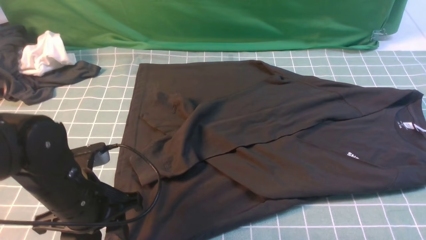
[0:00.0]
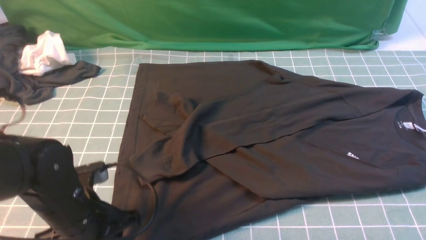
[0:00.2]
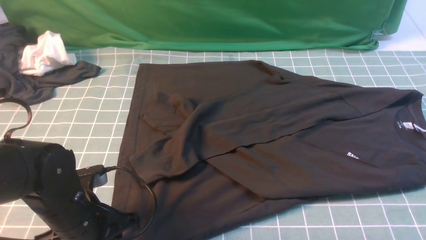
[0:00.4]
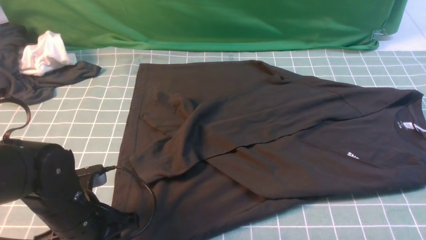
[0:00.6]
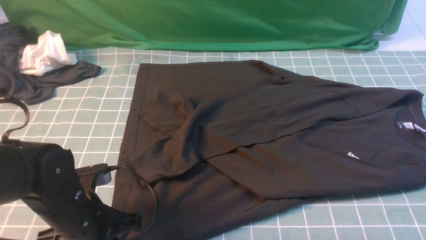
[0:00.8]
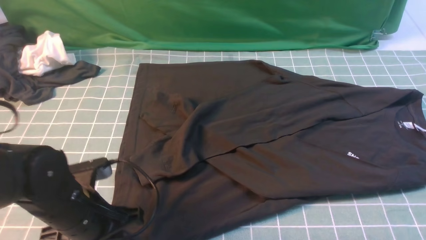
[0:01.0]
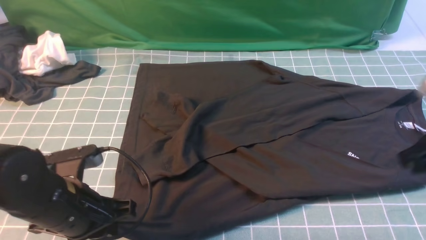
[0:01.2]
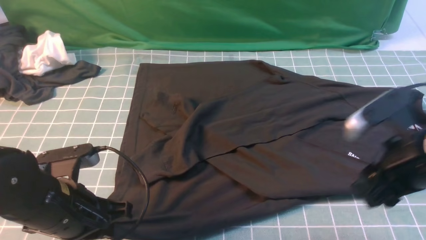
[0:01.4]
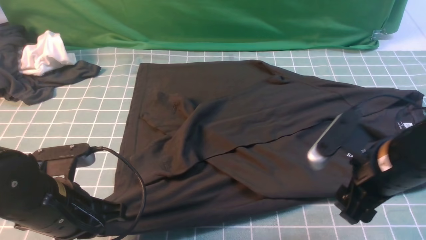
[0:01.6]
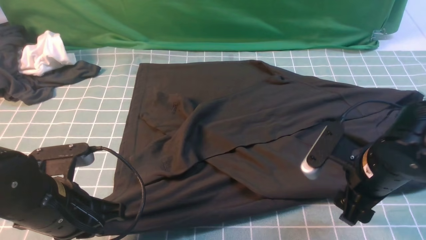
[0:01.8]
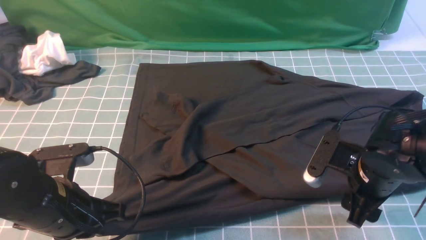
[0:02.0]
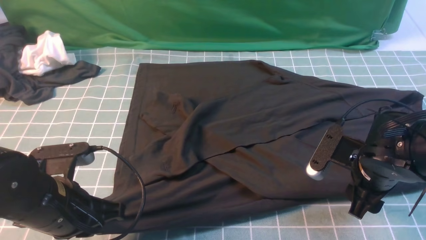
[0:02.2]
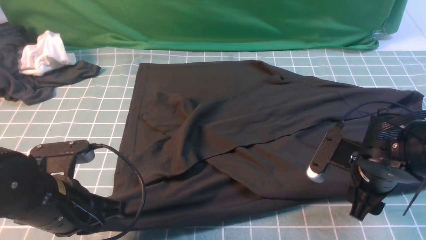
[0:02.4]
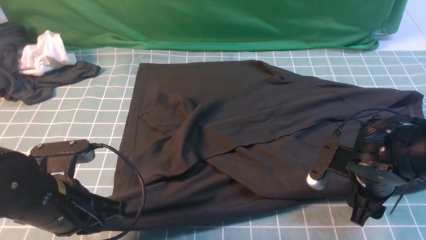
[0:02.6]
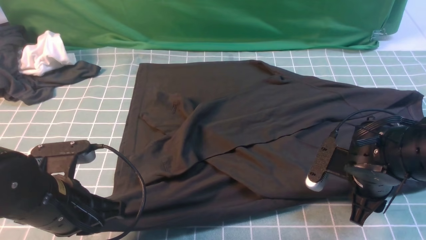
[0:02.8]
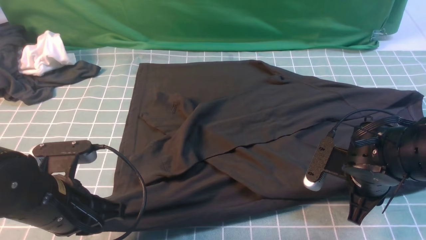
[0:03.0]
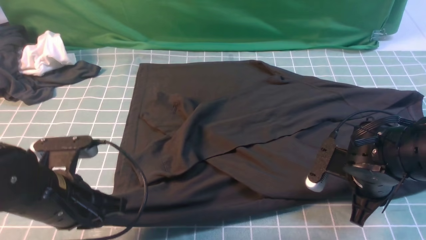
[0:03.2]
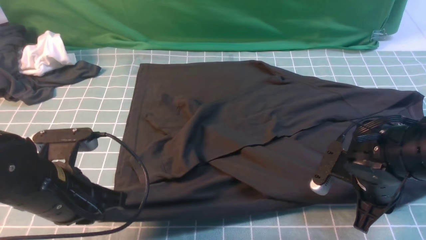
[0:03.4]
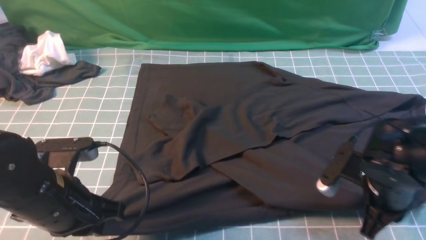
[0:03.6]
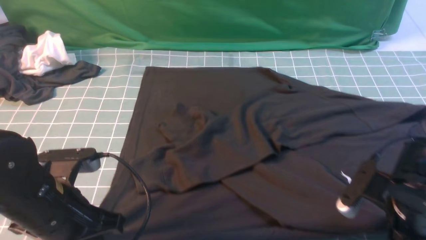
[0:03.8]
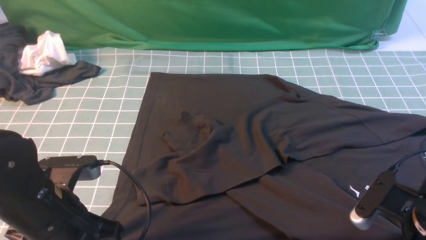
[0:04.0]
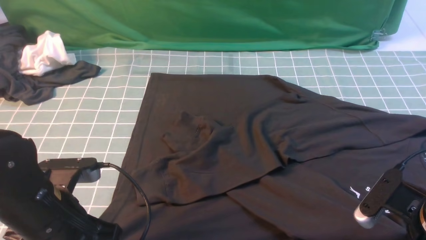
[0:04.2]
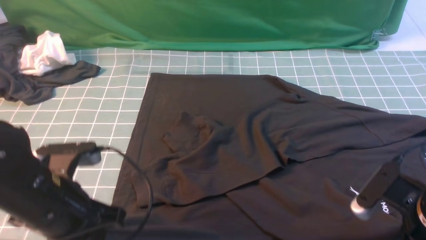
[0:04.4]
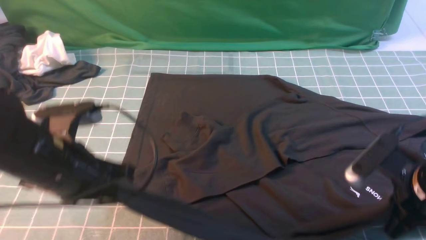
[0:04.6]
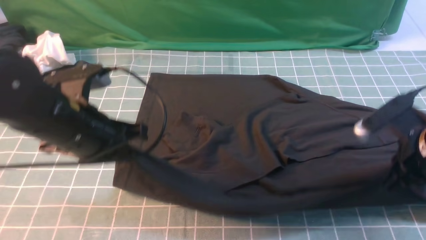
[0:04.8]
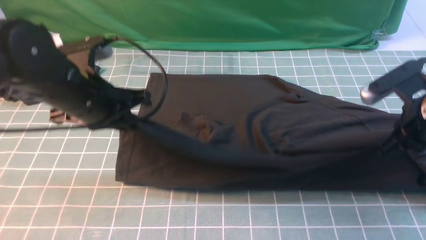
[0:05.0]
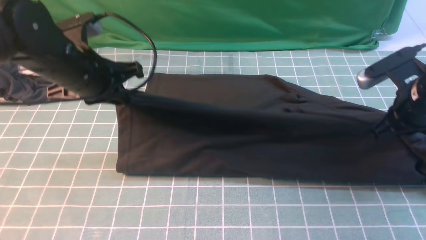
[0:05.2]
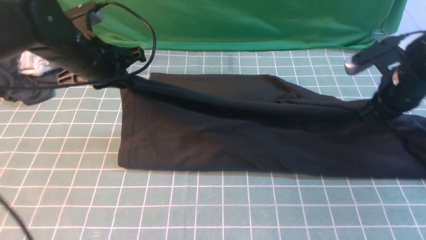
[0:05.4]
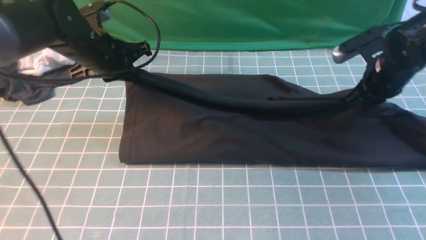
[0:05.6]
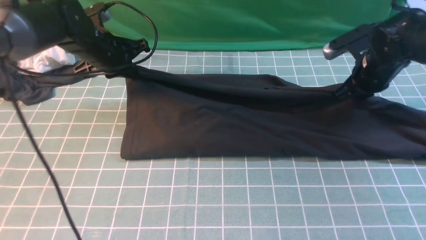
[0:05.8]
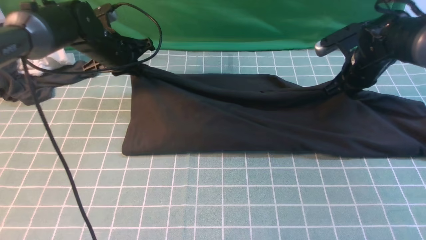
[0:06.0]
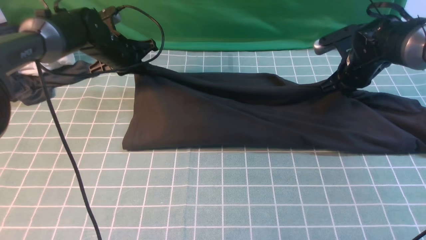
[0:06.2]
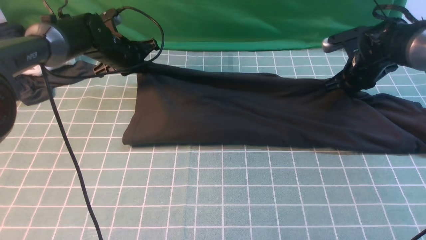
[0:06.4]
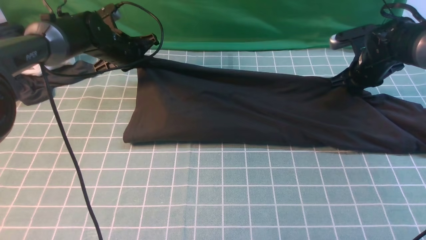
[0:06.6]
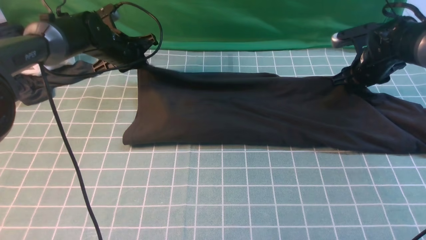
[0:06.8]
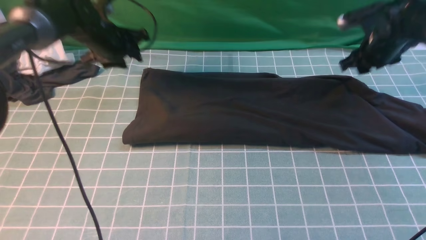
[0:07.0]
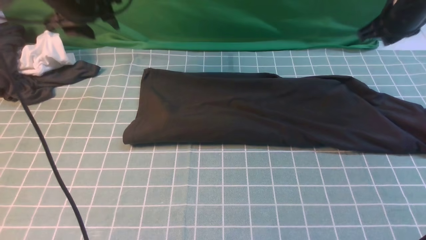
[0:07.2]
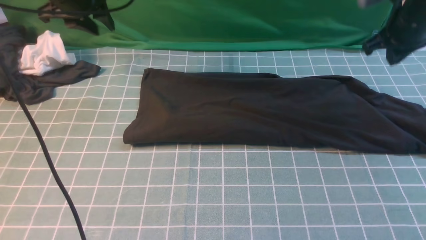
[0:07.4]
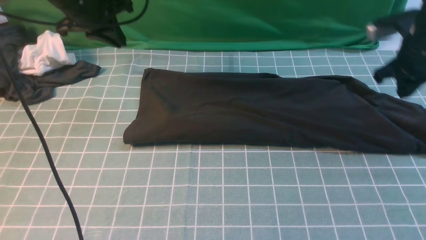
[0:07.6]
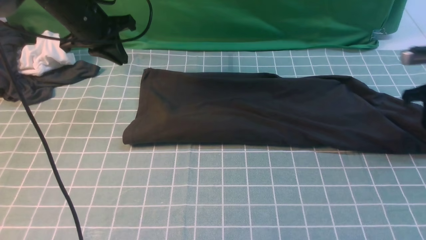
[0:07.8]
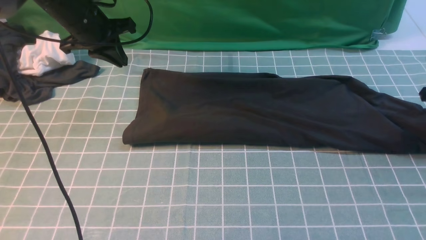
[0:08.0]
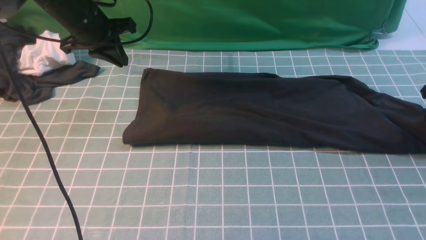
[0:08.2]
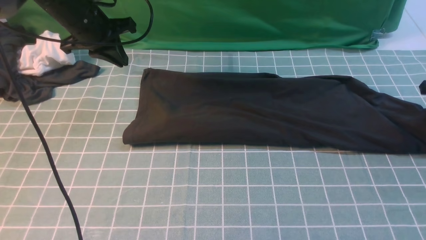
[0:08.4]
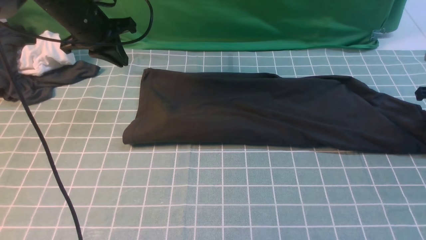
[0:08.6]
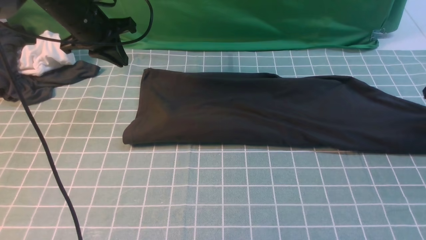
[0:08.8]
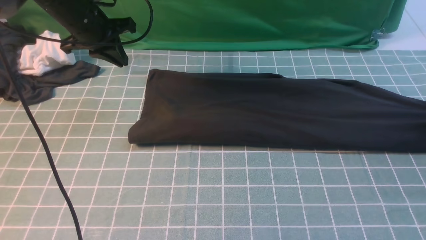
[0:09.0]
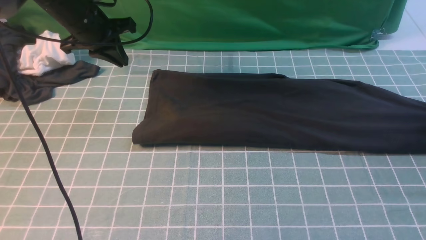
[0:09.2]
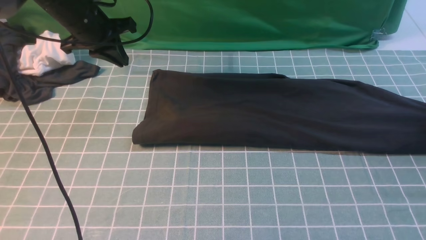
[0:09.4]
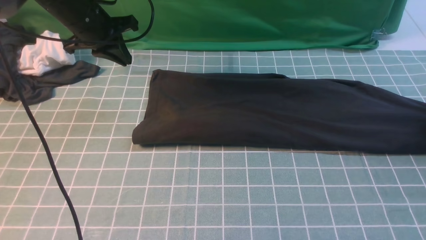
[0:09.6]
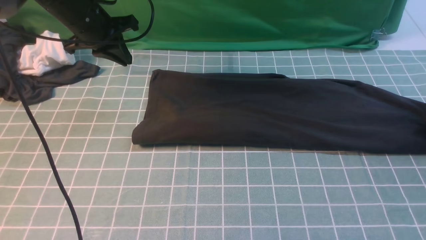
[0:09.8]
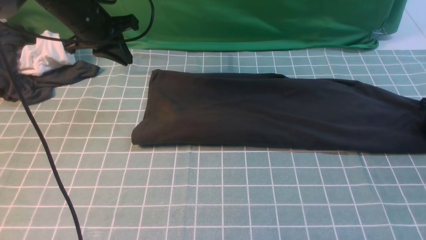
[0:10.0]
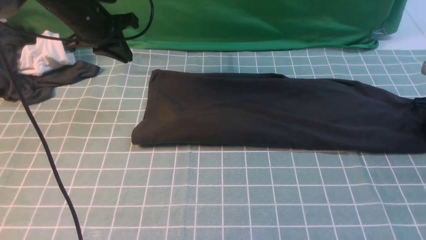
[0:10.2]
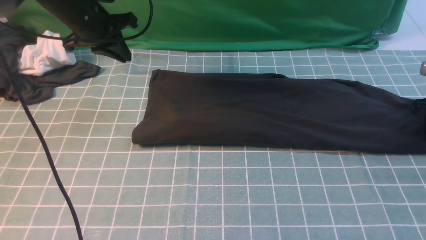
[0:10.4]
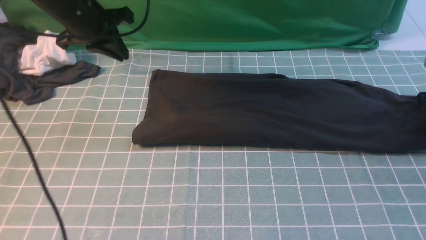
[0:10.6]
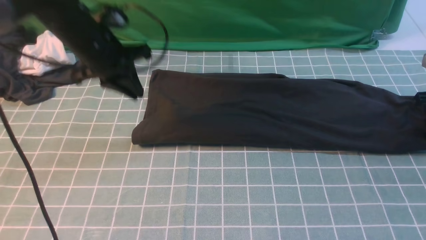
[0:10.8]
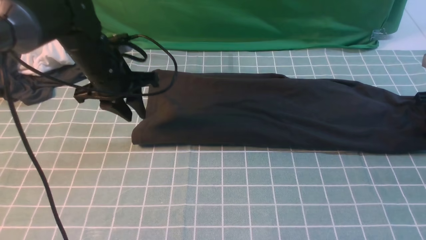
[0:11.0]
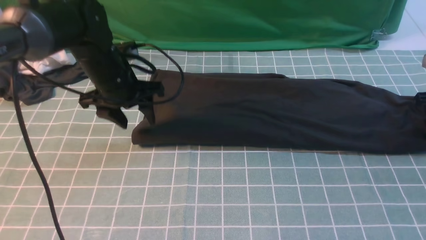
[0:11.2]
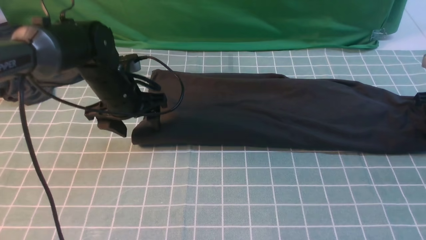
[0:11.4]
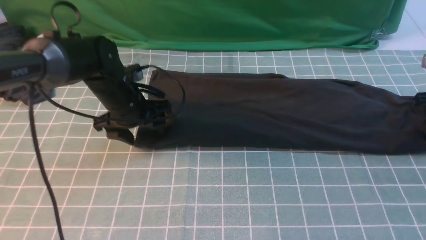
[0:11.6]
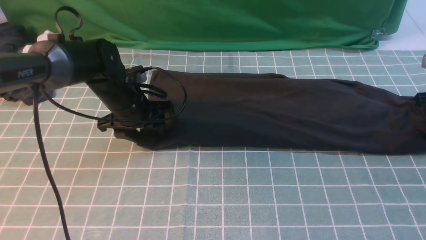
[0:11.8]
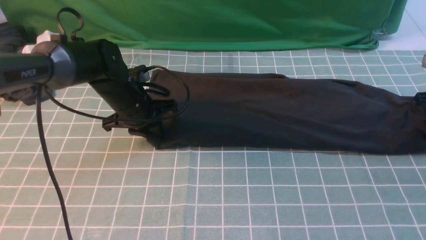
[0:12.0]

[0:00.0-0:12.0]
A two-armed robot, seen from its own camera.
Step, 0:00.0 to 0:03.2: use both arms simultaneously to clamp the lower edge of the clothing fabric.
Step, 0:03.4 to 0:06.8: use both arms to drag the lower edge of the fabric forward and fold it over the upper edge.
0:00.0 to 0:01.6: The right gripper goes some 15 cm to the left and downward, and opens. Meanwhile the left gripper closes up.
0:01.6 to 0:03.0: The right gripper is displaced downward by about 10 cm, and closes its fingers.
0:03.0 to 0:04.4: The right gripper is displaced backward by roughly 5 cm.
0:04.4 to 0:06.0: The two grippers go roughly 30 cm forward.
0:06.0 to 0:07.6: The left gripper goes roughly 10 cm upward, and opens, then closes once more. Meanwhile the right gripper is displaced to the right and upward by approximately 10 cm, and opens and closes again.
0:07.6 to 0:09.0: The right gripper heads to the right and downward, covering approximately 15 cm, and opens, then closes once more.
0:09.0 to 0:10.4: The right gripper opens, then closes once more.
0:10.4 to 0:12.0: The left gripper is displaced downward, to the right and backward by roughly 15 cm, and opens, then closes again.

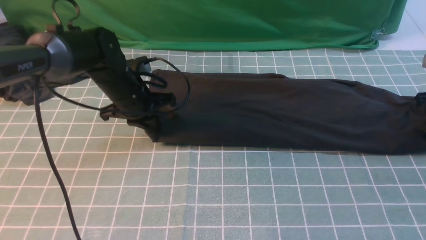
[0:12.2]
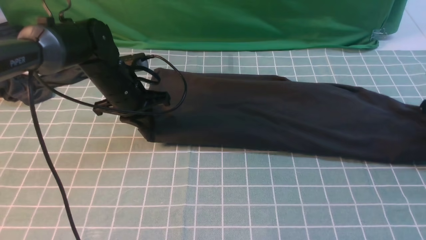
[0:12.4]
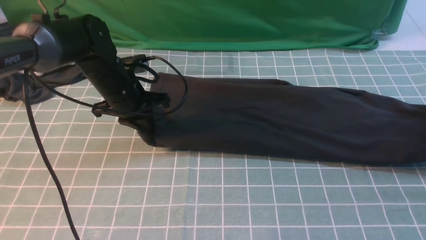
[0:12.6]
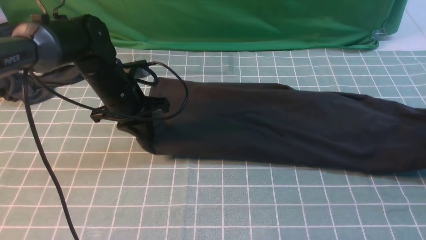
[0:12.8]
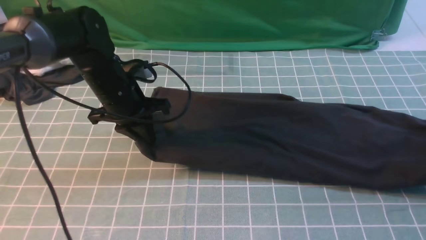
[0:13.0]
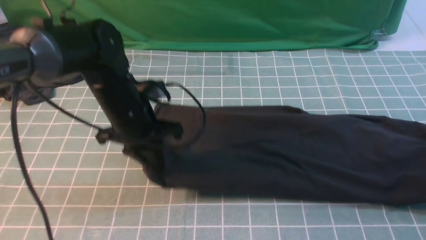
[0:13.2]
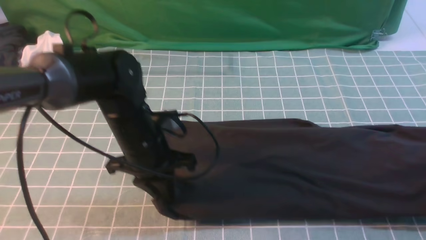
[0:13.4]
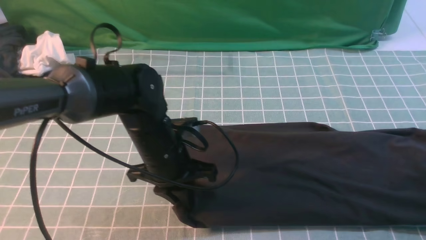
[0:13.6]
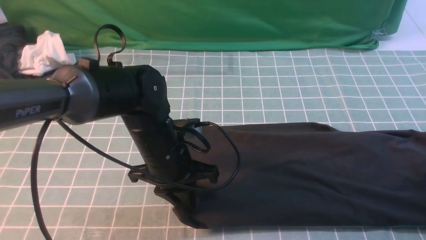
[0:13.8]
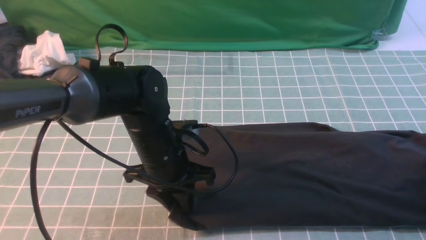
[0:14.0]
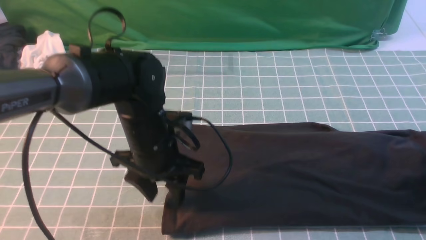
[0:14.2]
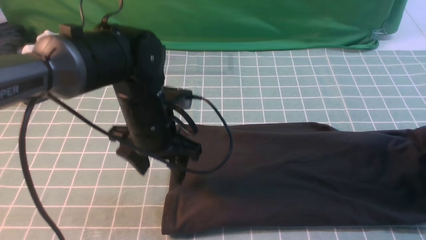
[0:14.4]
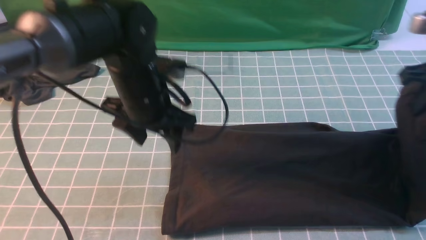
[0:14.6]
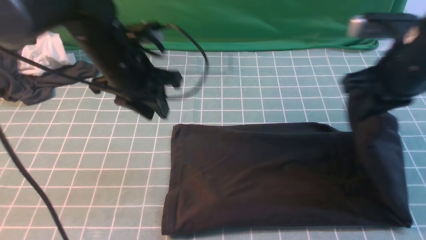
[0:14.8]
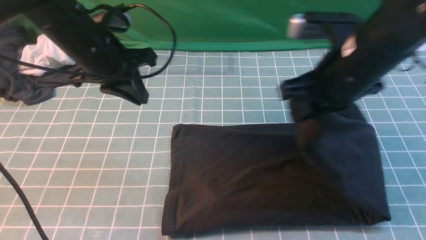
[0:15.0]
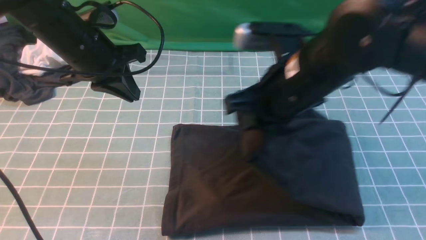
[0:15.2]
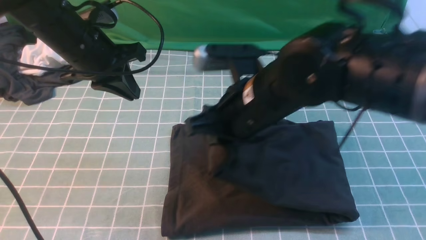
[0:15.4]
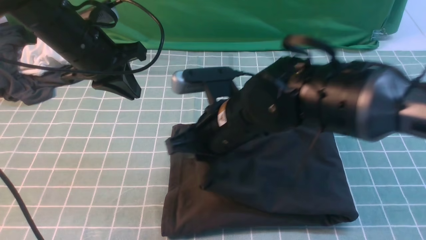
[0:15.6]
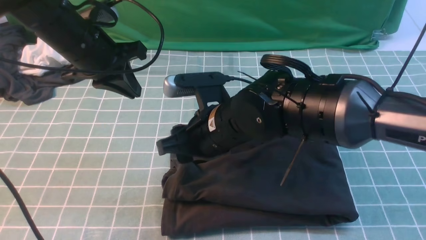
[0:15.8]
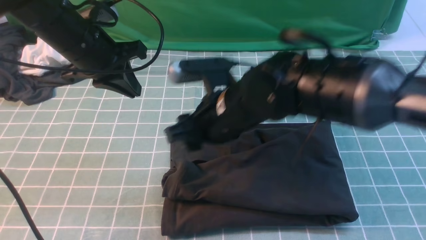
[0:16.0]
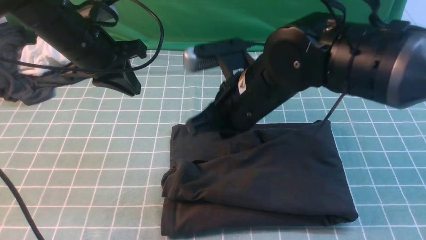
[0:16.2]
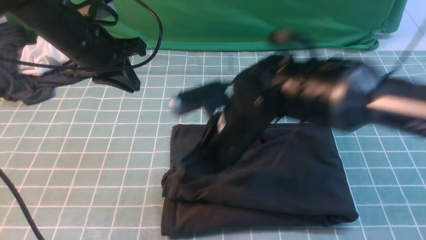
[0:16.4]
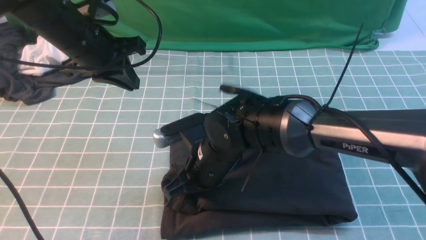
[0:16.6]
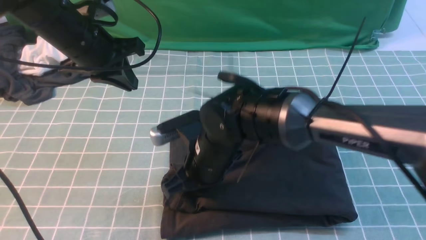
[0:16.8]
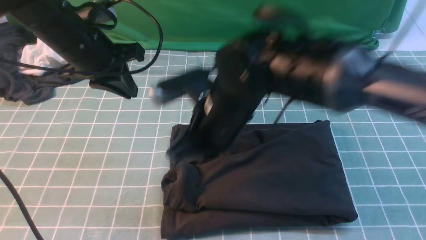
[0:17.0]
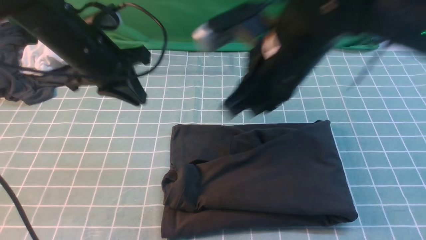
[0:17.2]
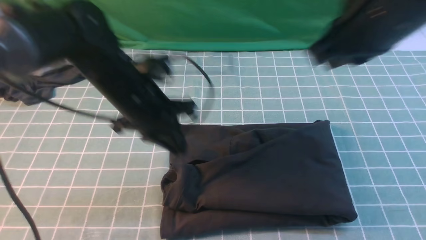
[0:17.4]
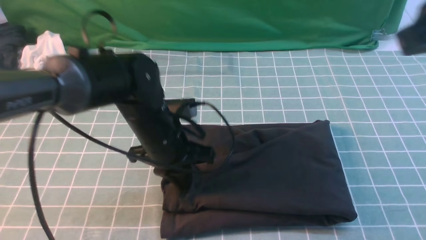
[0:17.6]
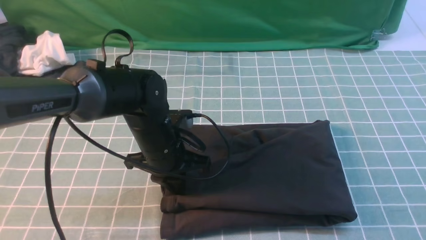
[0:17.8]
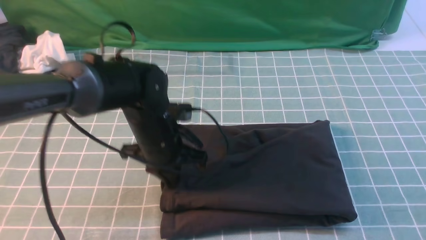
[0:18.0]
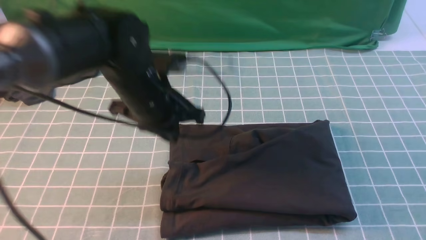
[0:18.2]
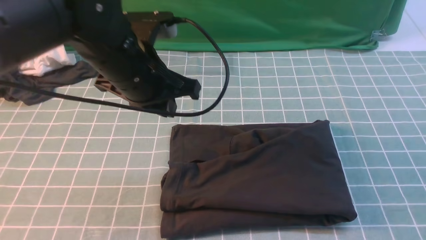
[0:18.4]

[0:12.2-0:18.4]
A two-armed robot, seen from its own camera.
Step, 0:12.2 to 0:14.2: use the right arm to clamp the right edge of the fabric.
Step, 0:14.4 to 0:15.8: use the right arm to drag the right edge of the fabric to the left and folds it over the left edge.
0:12.2 to 0:13.8: The left gripper heads backward and to the right, covering roughly 15 cm, while the right gripper is displaced backward, upward and to the right by roughly 15 cm.
0:13.8 to 0:15.4: The left gripper shifts approximately 20 cm to the left, upward and forward, and opens and closes again, while the right gripper travels to the left by some 40 cm.
0:15.4 to 0:16.8: The right gripper shifts about 10 cm downward and to the left, and opens and closes again.
0:16.8 to 0:18.4: The left gripper goes about 10 cm to the right and backward, and reaches about 10 cm downward, then returns. The right gripper shifts roughly 50 cm to the right, backward and upward.
